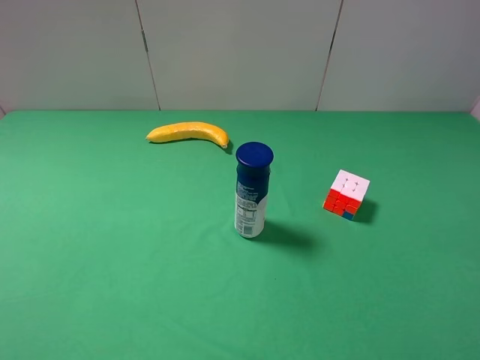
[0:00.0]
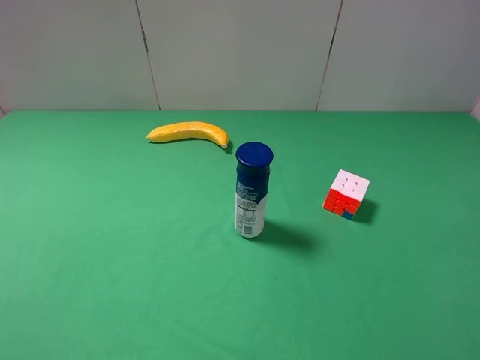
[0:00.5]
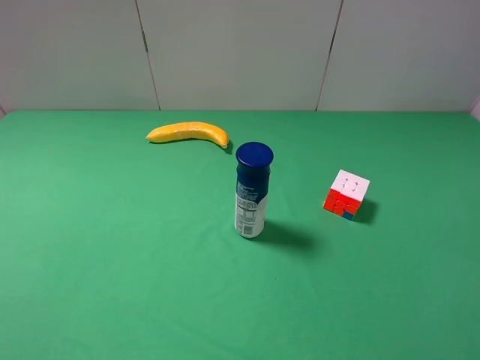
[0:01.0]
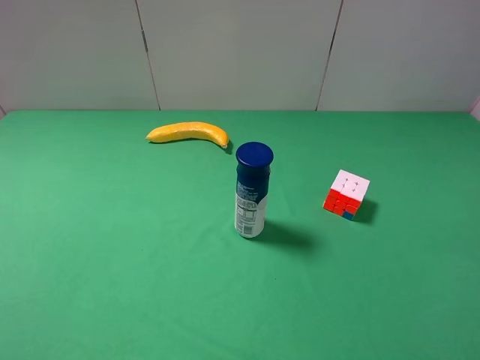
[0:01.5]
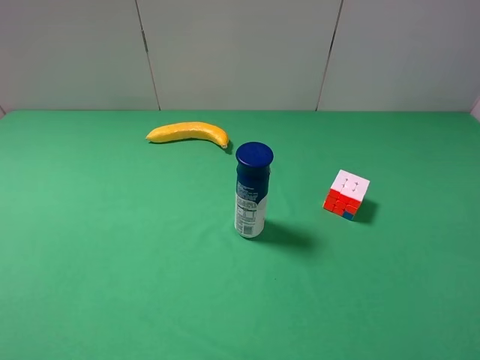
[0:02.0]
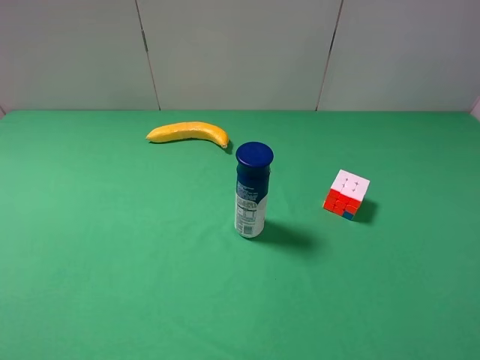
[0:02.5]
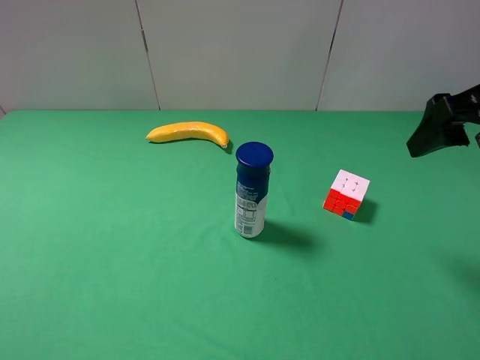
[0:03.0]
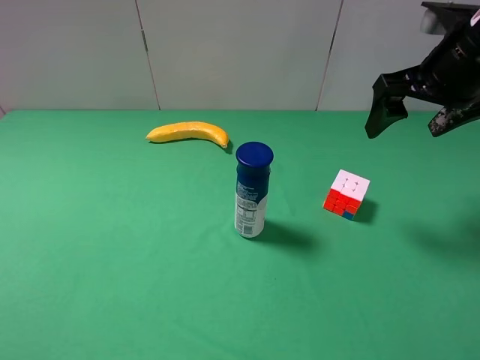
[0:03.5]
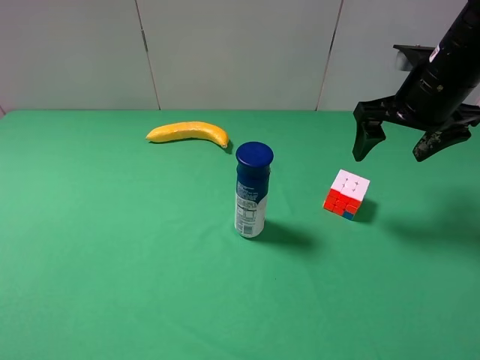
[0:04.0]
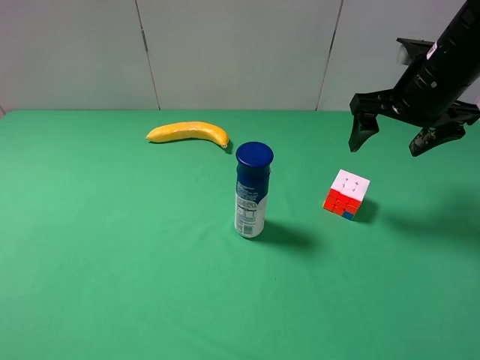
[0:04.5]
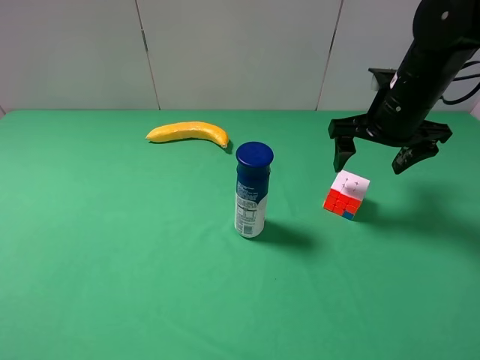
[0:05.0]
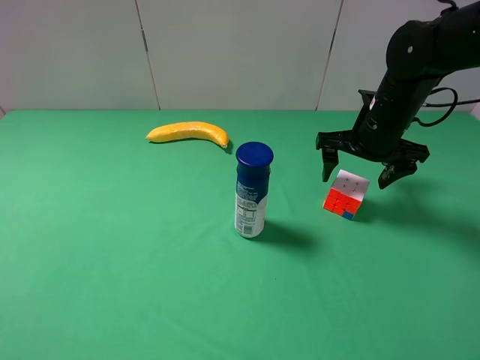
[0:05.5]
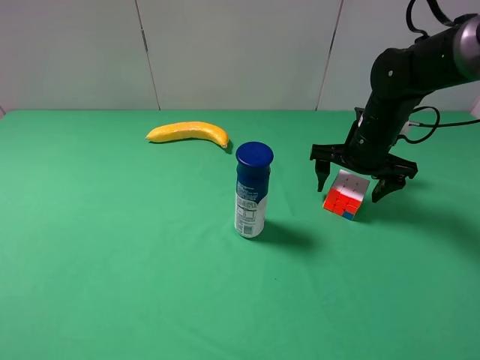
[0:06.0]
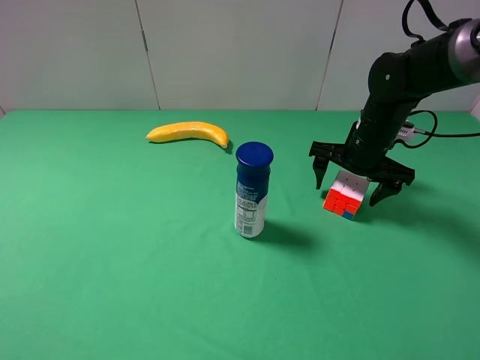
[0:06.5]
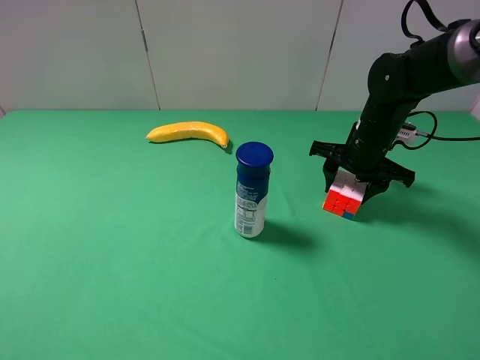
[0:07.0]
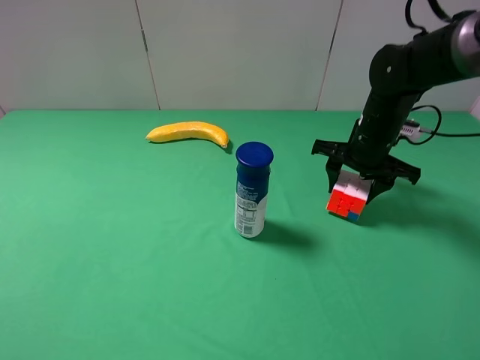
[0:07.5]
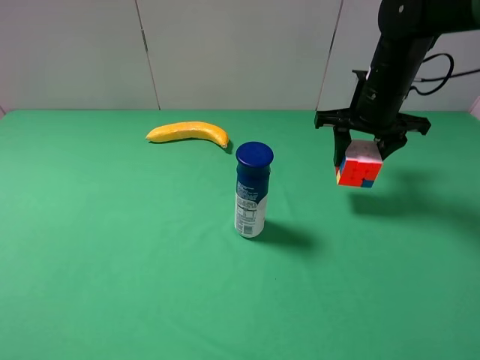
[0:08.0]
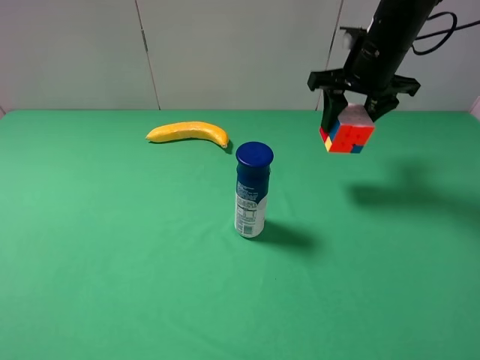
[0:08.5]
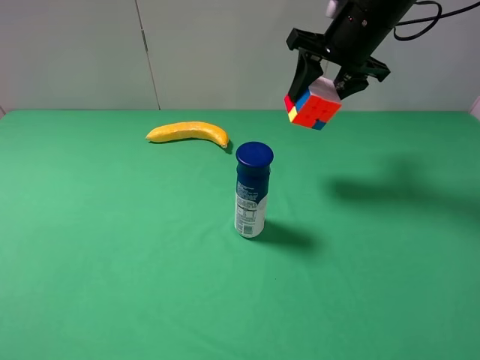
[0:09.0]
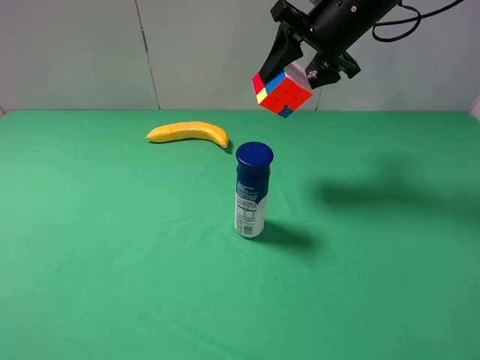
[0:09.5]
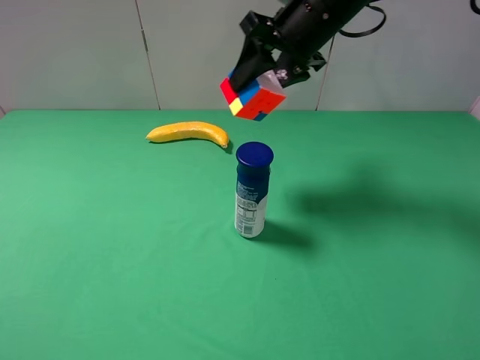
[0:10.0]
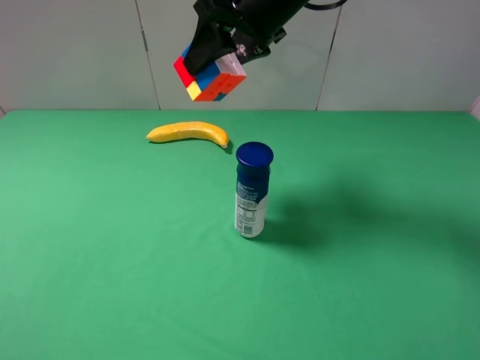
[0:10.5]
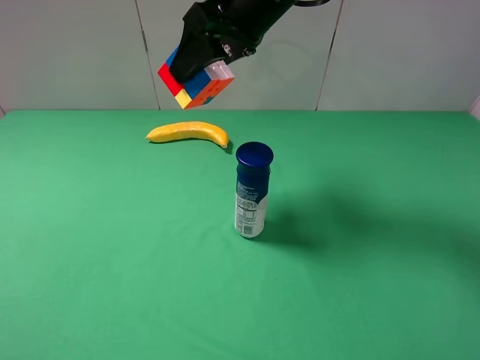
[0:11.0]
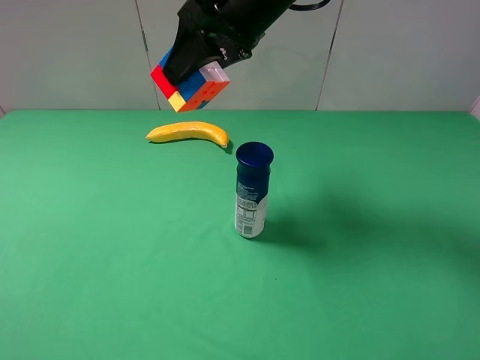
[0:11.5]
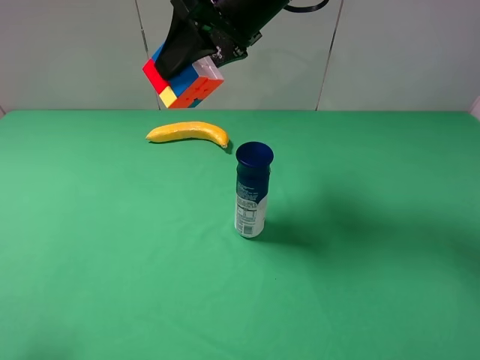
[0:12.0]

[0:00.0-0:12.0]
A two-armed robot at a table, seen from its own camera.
Task of the whole recording: use the right gripper to pick up the item and transfer it from the right gripper to the left gripper.
Step, 0:00.0 to 0:07.0: Use the right gripper to grab the Rubik's Cube on the right side of the table.
0:00.0 to 0:02.0: The two grippers keep their place.
0:02.0 to 0:04.0: The right gripper shifts roughly 30 cm forward.
0:04.0 to 0:06.0: The right gripper travels downward by approximately 10 cm.
0:06.0 to 0:08.0: The right gripper shifts some 5 cm upward, and closes its fingers.
0:08.0 to 0:10.0: The right gripper shifts approximately 15 cm to the left and upward.
0:10.0 to 0:12.0: The right gripper is displaced to the left by about 5 cm; the left gripper shifts approximately 5 cm forward.

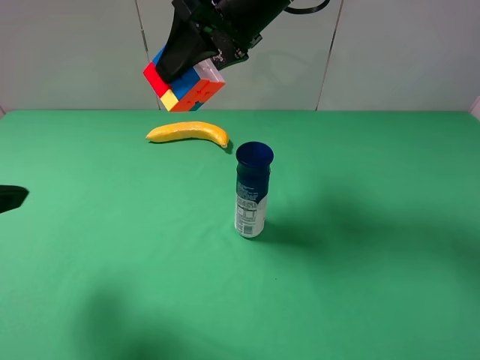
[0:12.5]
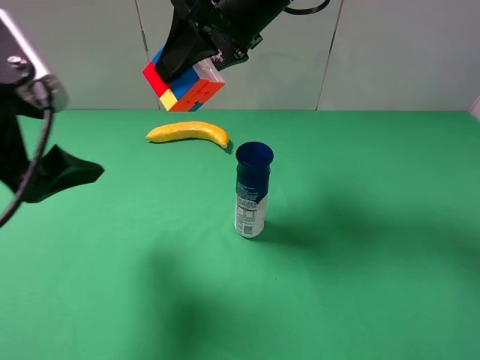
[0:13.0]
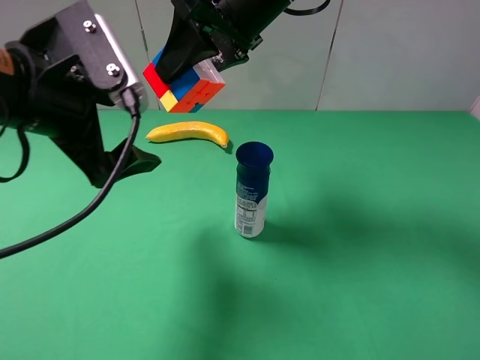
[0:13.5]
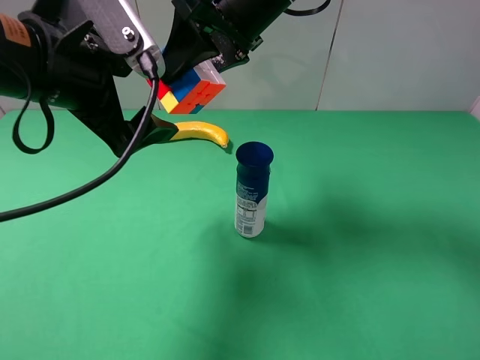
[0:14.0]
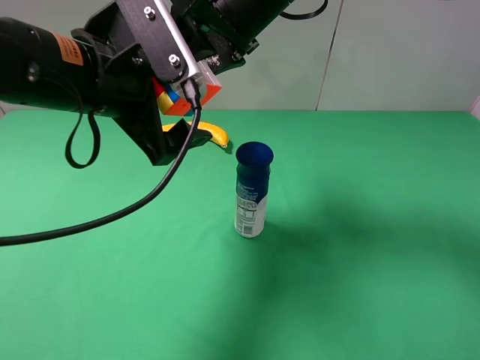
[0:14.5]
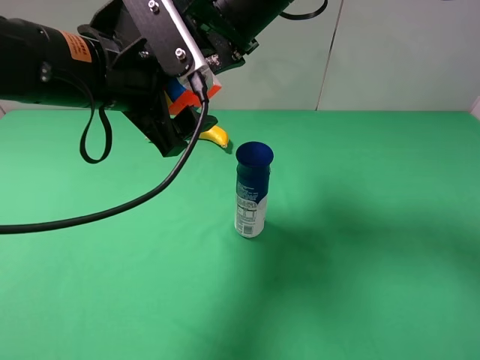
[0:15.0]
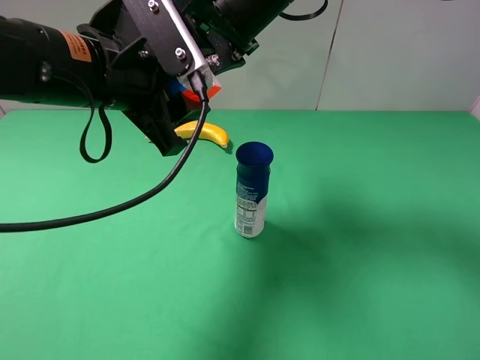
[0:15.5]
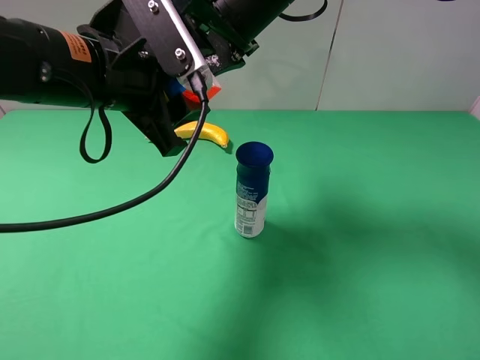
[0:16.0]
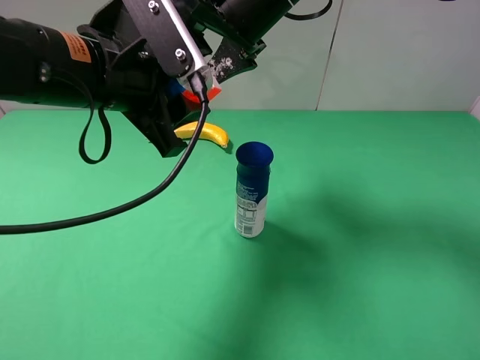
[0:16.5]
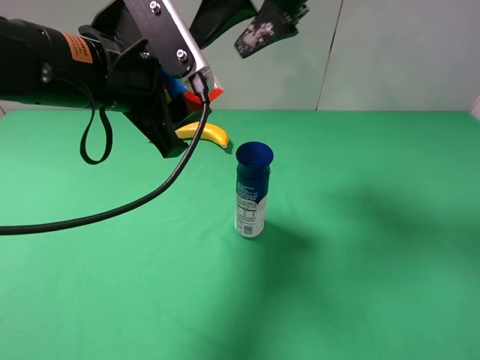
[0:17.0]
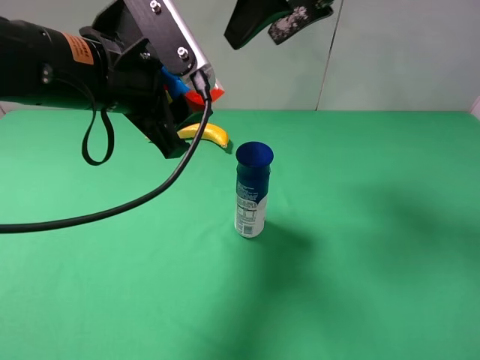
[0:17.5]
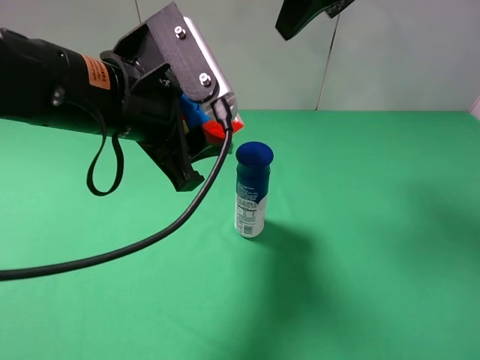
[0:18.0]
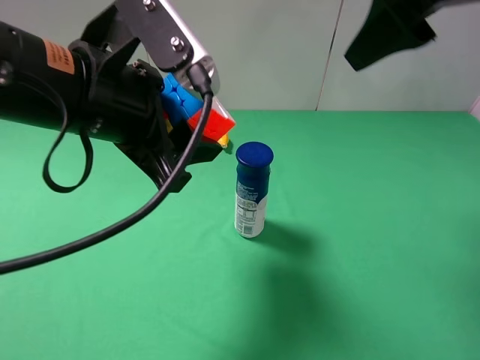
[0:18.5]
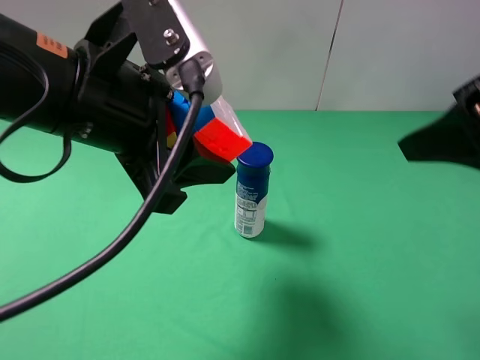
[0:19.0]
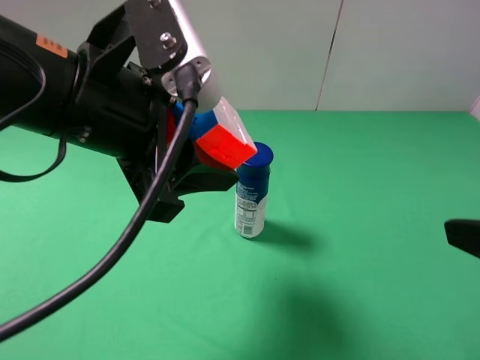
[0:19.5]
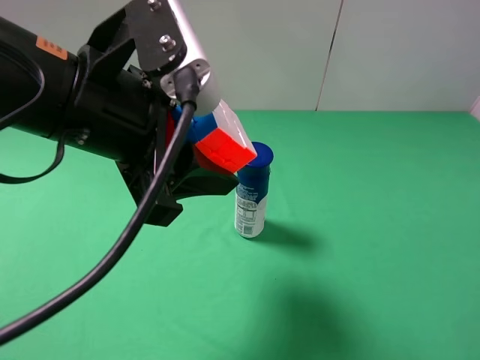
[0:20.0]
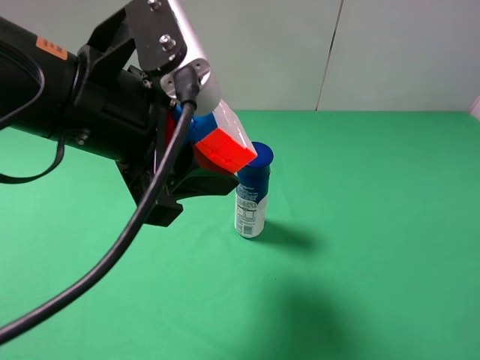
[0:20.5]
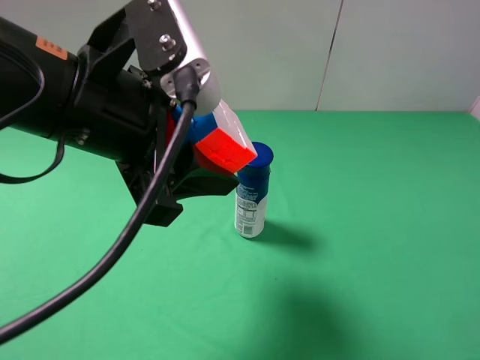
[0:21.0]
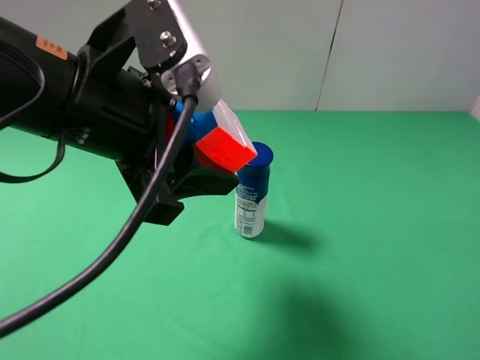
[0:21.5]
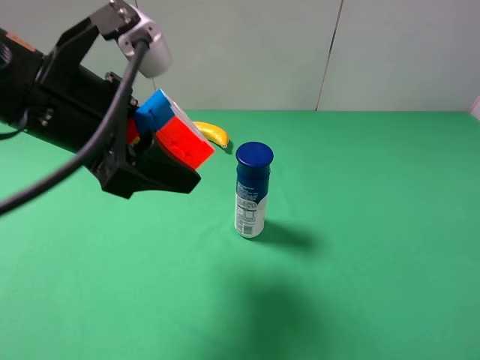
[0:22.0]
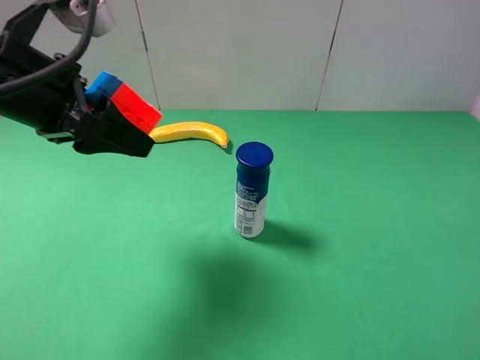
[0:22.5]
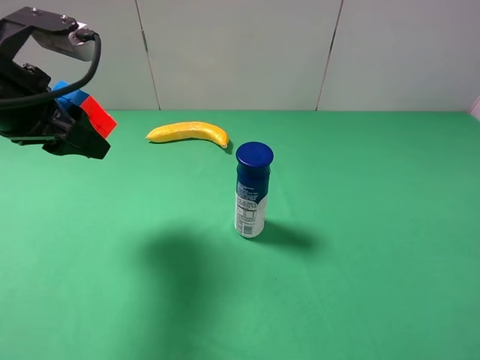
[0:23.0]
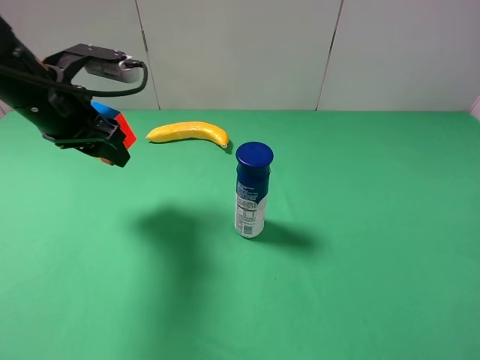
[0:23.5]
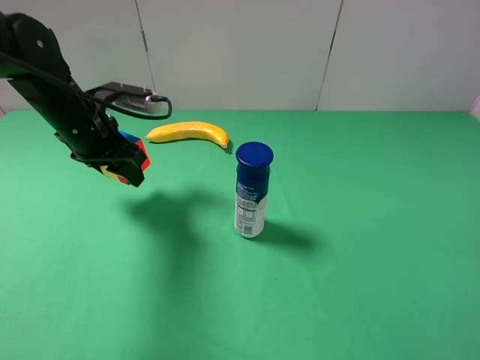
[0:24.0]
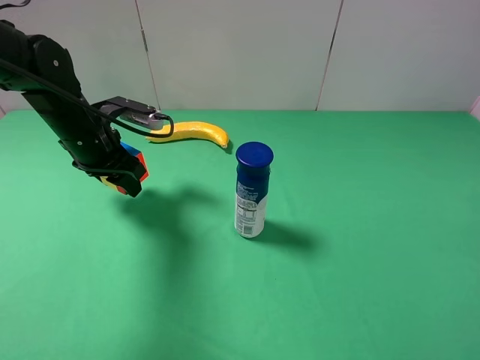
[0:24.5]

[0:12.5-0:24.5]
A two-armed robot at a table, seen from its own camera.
Task of the whole recording: use the right gripper to pick up the item and transfer it from the right gripper to the left gripper.
Step, 0:12.5 to 0:17.0: Pass the Rubik's Cube to the left gripper.
0:12.5 to 0:14.5: The left gripper moves to the right and forward, about 20 cm.
0:14.5 to 0:16.5: The left gripper closes; the right gripper opens.
0:16.5 to 0:18.5: The right gripper travels to the right, backward and upward by approximately 20 cm.
0:18.5 to 0:20.5: The right gripper shifts approximately 25 cm backward, downward and to the right.
0:20.5 to 0:22.5: The left gripper shifts approximately 10 cm to the left and forward.
0:22.5 to 0:24.5: The left gripper travels downward and forward by about 15 cm.

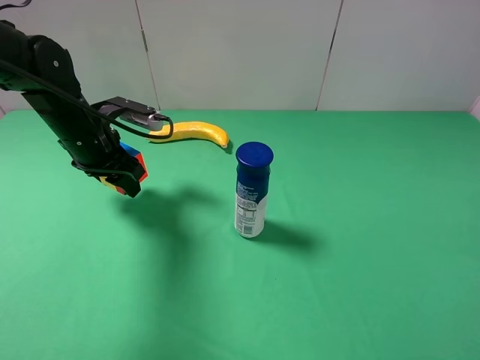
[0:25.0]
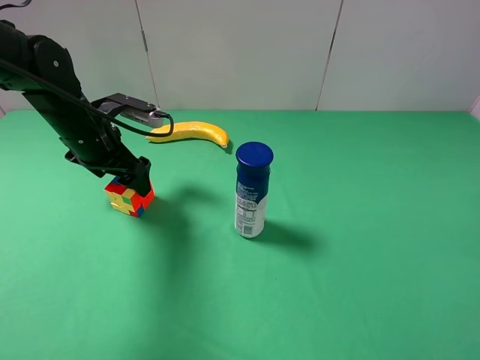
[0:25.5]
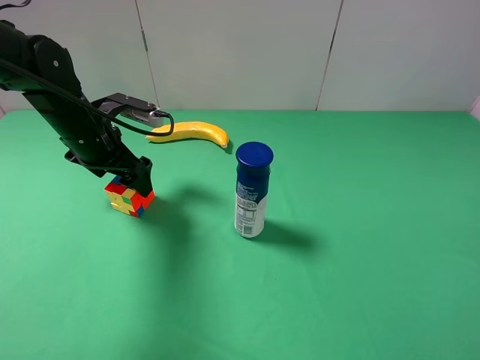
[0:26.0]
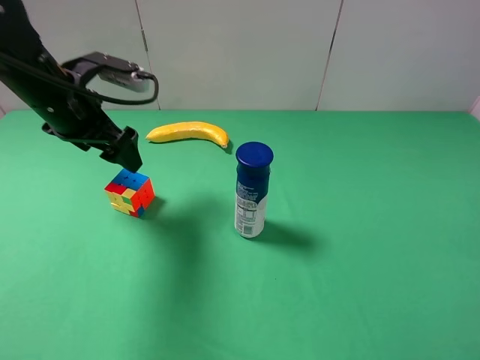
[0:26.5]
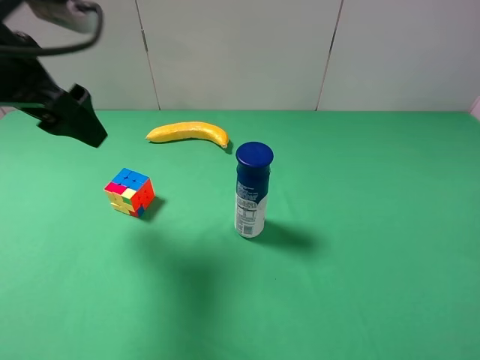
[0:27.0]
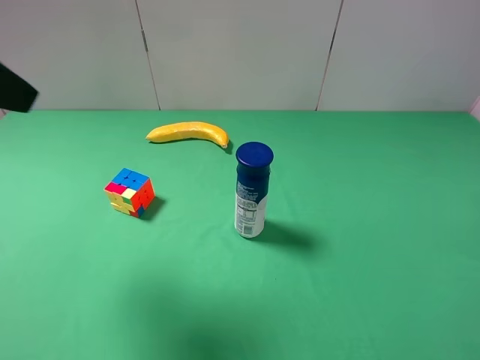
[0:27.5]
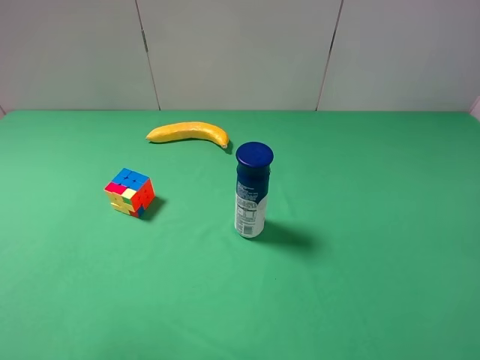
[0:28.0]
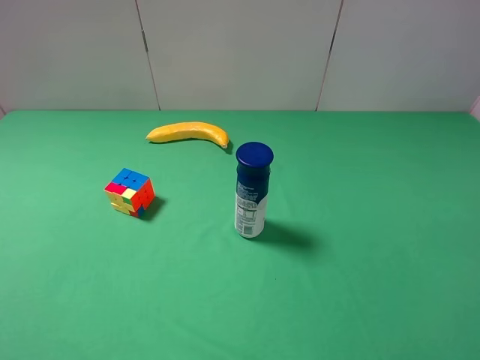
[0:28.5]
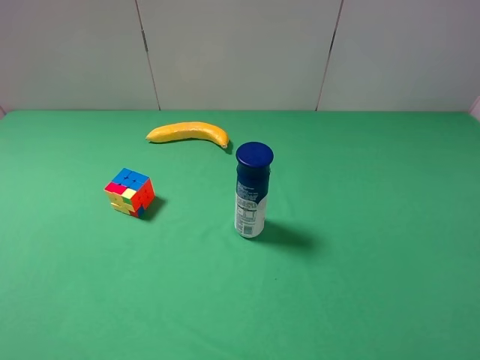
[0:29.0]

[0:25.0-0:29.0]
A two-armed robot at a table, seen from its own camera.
Task of the whole recording: use the right gripper to pick up the item and transfer it from the right gripper to the left gripper.
0:25.0 to 0:27.0: The left gripper heads upward and backward, covering about 20 cm, and opens its fingers.
0:27.0 to 0:29.0: The left gripper heads backward, covering roughly 25 cm.
